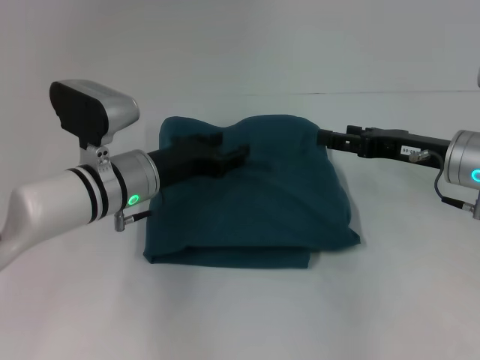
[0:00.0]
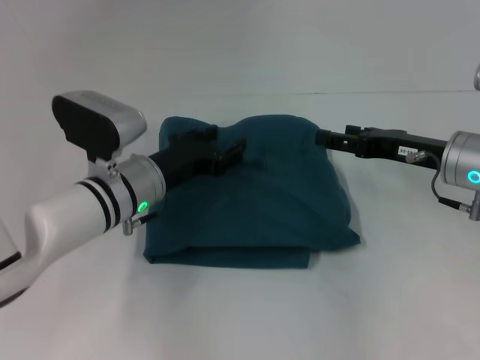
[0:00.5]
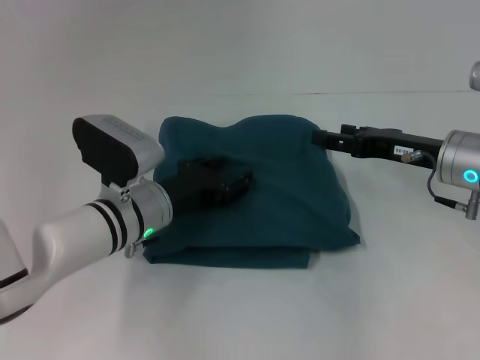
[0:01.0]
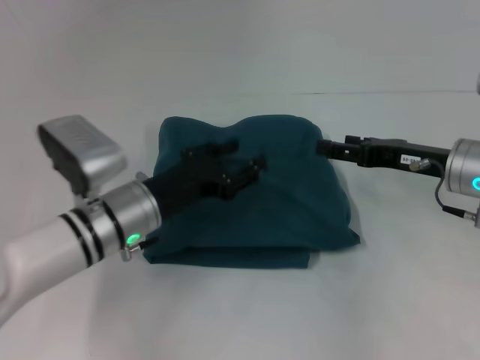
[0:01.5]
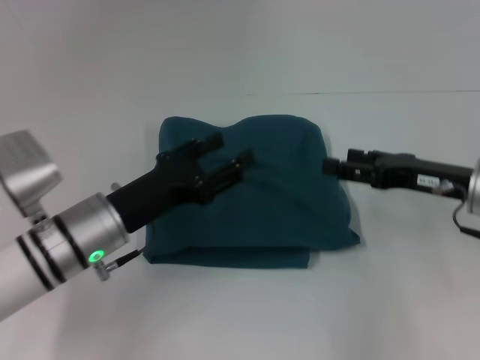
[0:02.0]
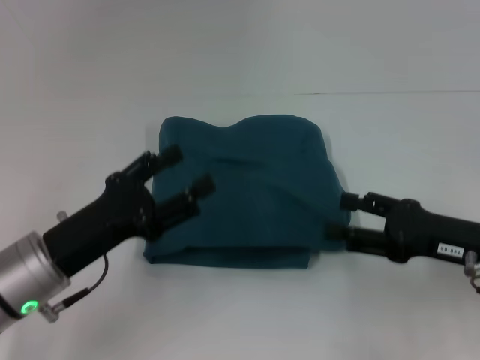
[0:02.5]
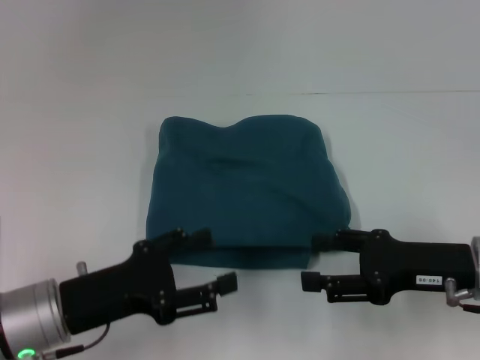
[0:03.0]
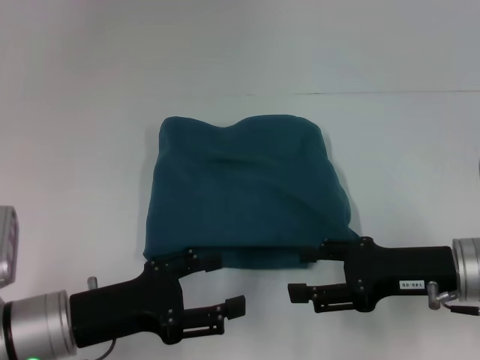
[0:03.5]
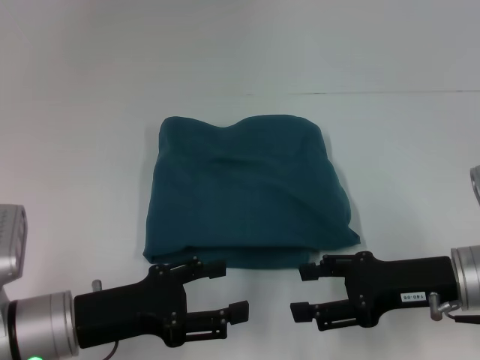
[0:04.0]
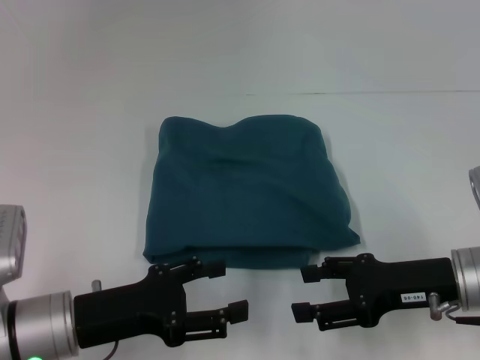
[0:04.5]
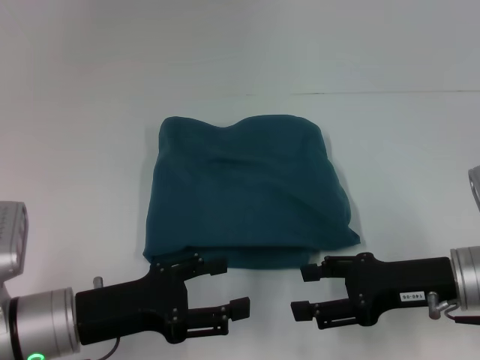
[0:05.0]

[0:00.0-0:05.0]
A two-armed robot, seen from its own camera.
0:00.0 to 0:02.5: The left gripper shifts about 15 cm backward and to the left. The right gripper heads backward, covering about 10 cm.

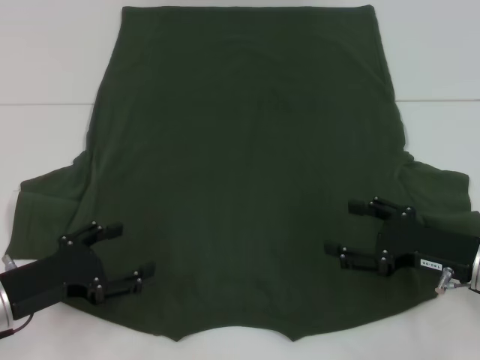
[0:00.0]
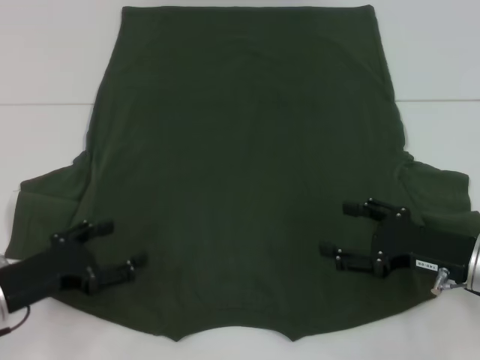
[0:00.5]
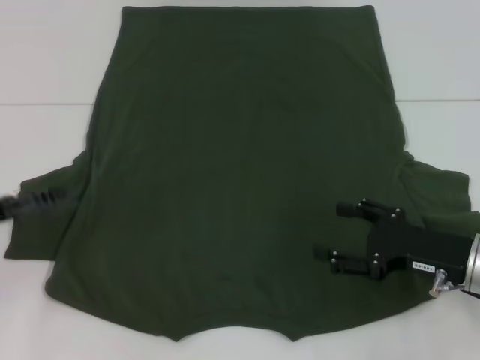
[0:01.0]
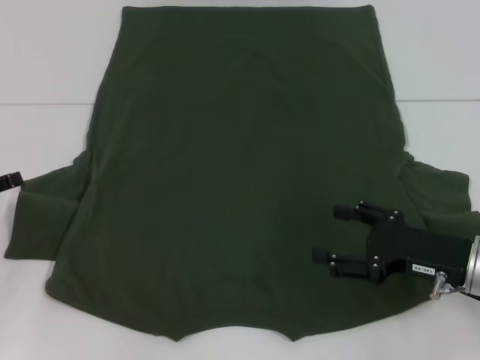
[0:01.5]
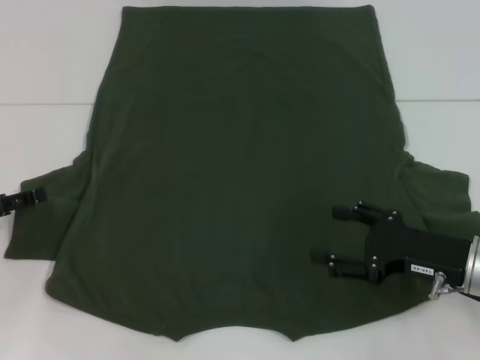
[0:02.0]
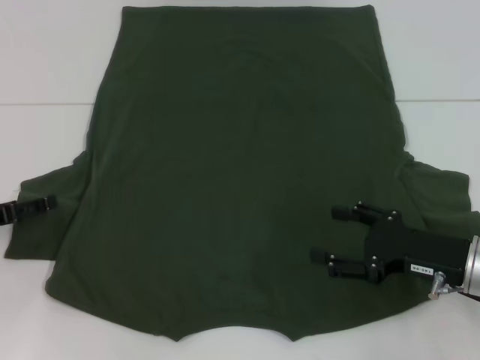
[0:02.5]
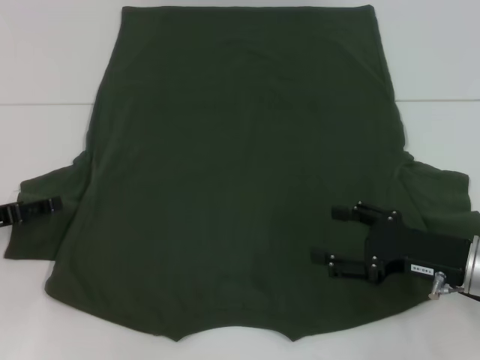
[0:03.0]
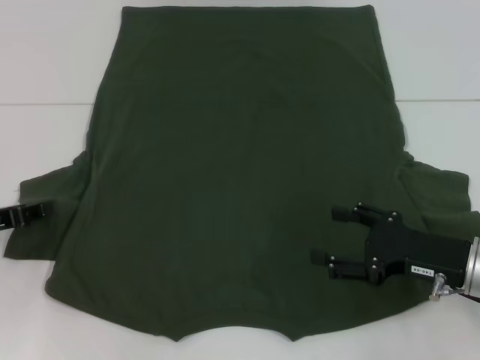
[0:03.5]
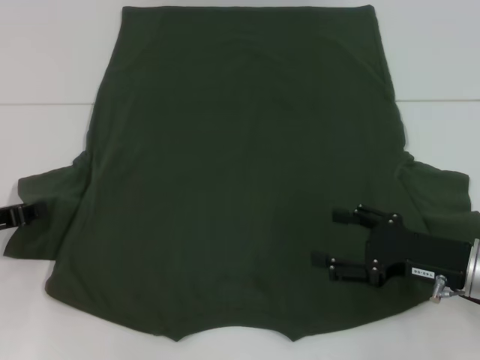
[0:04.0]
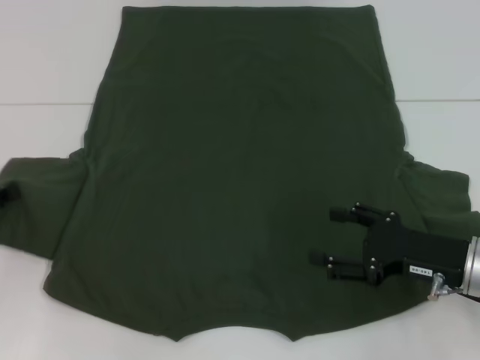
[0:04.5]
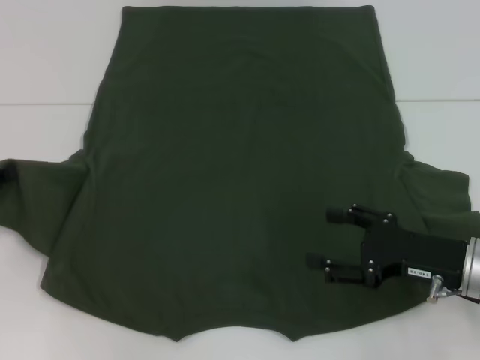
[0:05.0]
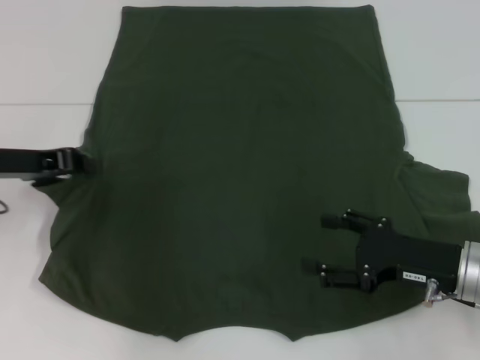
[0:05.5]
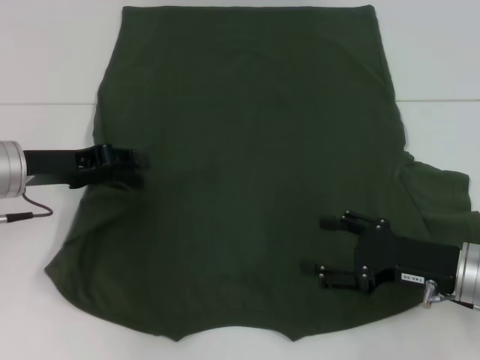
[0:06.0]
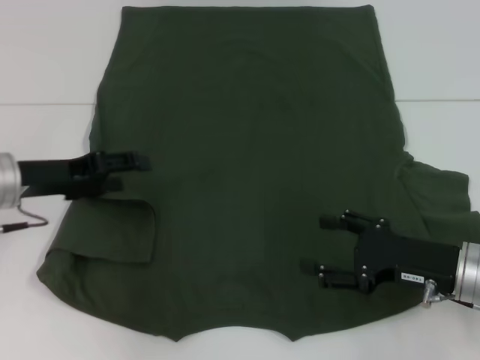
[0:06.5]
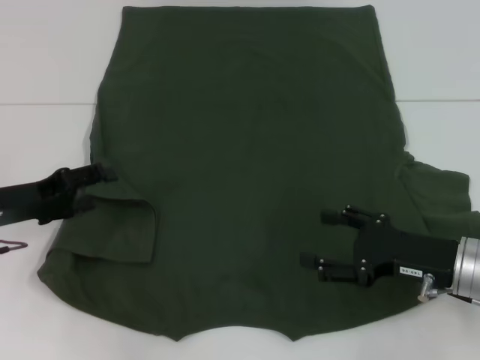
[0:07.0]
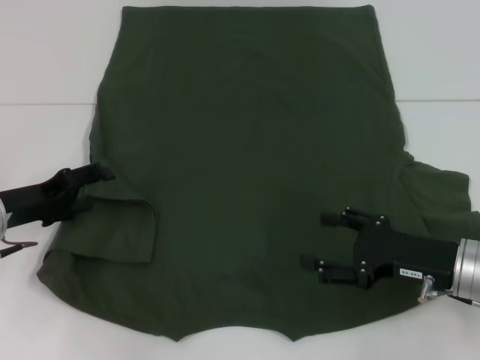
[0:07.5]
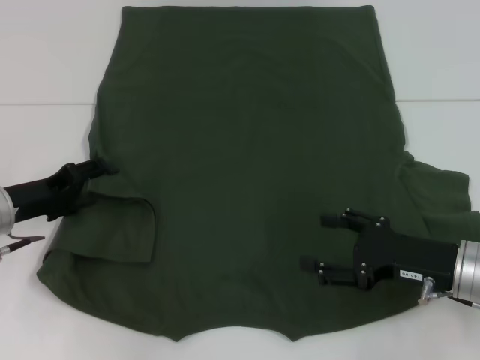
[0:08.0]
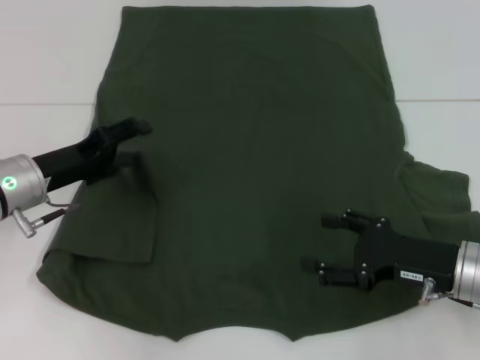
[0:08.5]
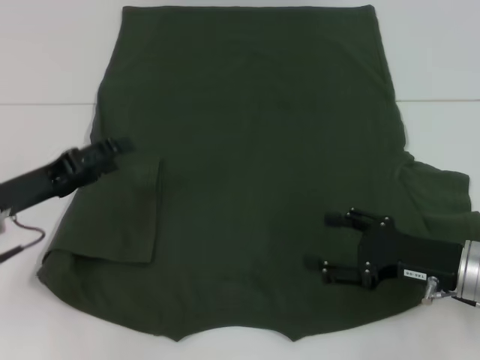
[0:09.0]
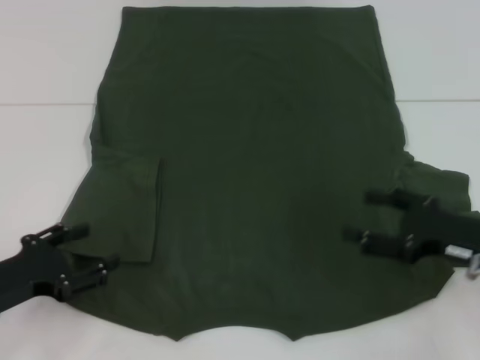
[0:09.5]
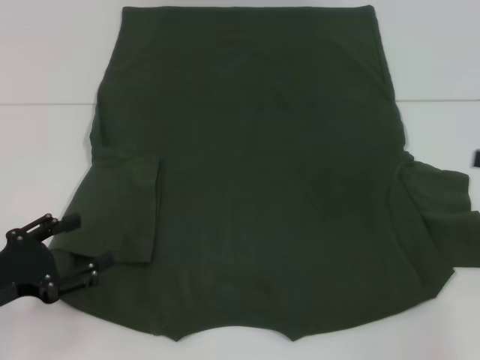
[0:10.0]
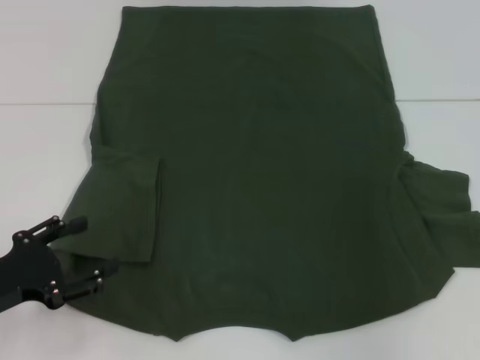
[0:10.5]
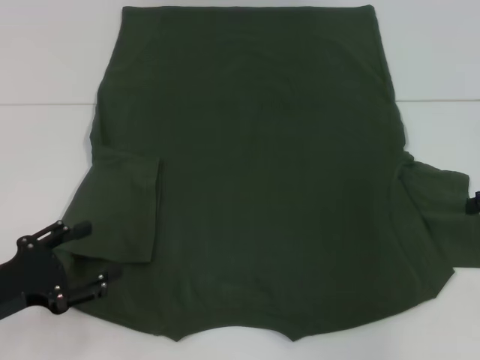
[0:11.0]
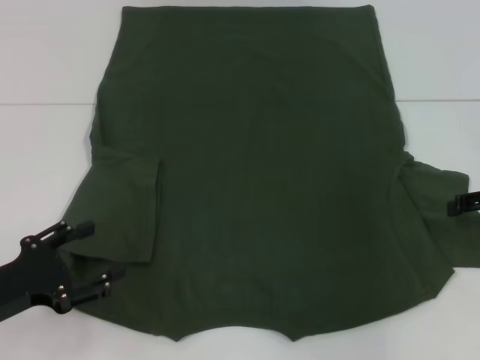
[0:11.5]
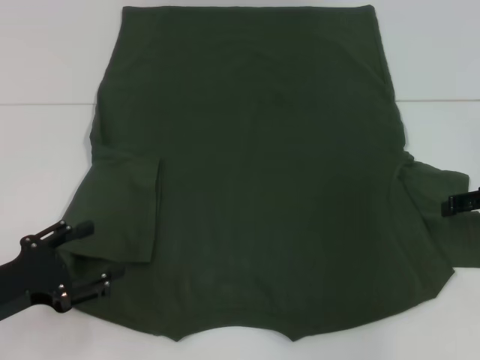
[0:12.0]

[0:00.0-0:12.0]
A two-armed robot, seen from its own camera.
Step, 0:00.0 to 0:08.5: Fold the bottom left sleeve with your left hand.
0:00.0 to 0:02.0: The left gripper travels to the left and forward by some 10 cm.
0:02.0 to 0:04.0: The left gripper closes its fingers.
0:04.0 to 0:06.0: The left gripper shifts roughly 10 cm to the right, upward and forward.
0:06.0 to 0:08.0: The left gripper heads downward, covering approximately 5 cm, and opens.
0:08.0 to 0:10.0: The left gripper is displaced backward by approximately 10 cm. The right gripper moves to the right and upward, approximately 20 cm.

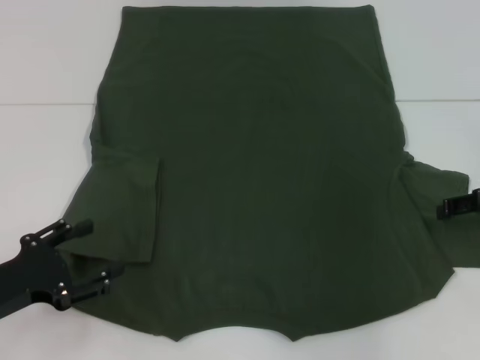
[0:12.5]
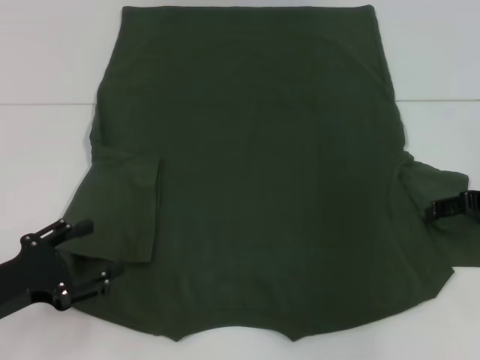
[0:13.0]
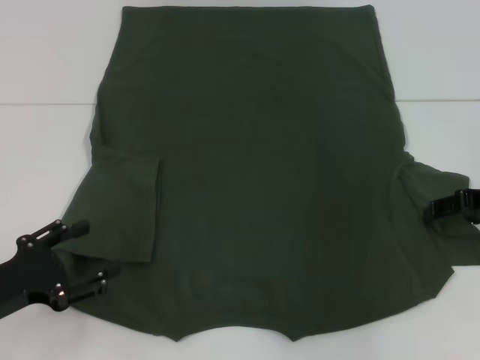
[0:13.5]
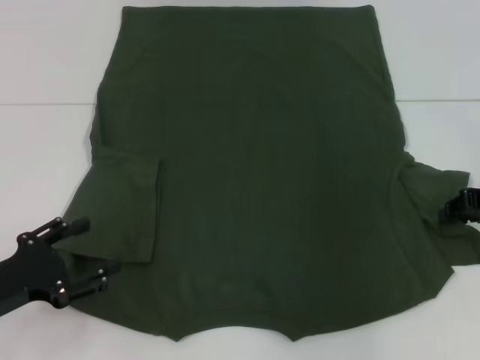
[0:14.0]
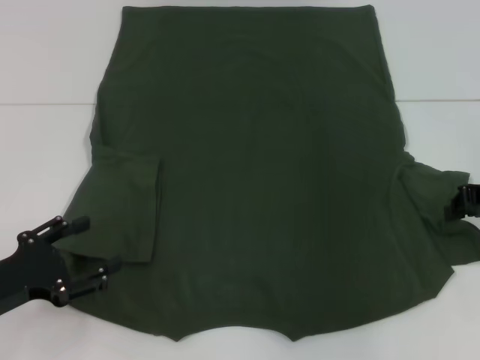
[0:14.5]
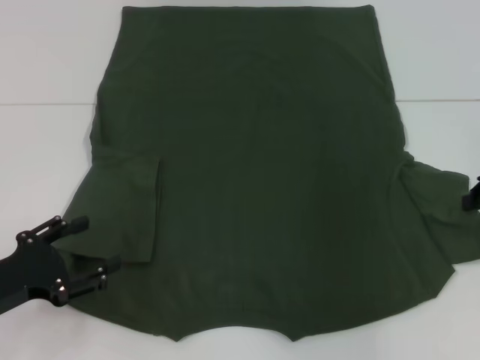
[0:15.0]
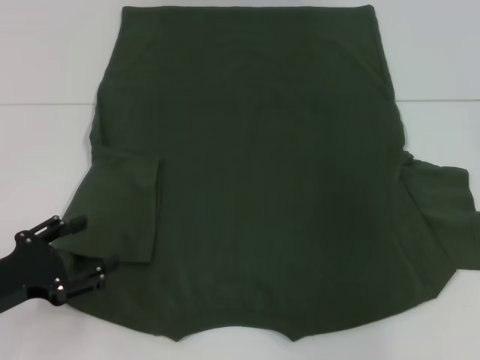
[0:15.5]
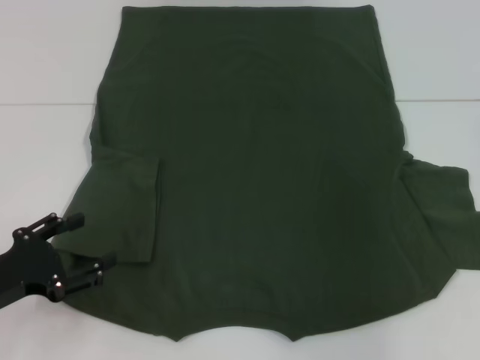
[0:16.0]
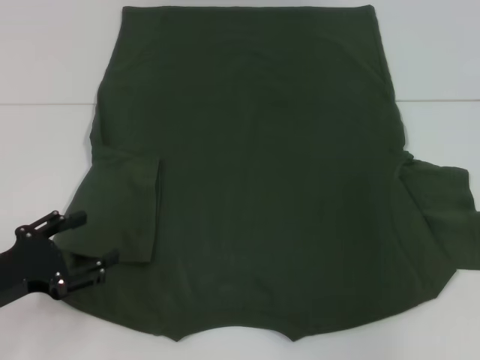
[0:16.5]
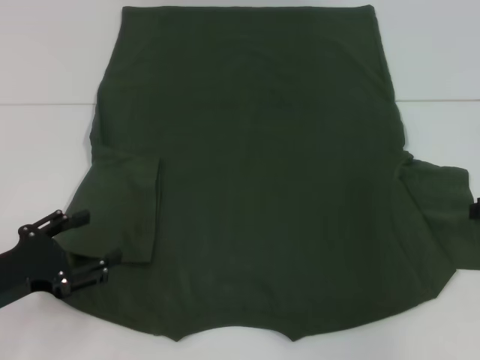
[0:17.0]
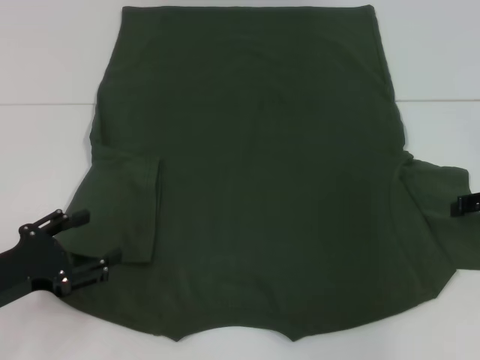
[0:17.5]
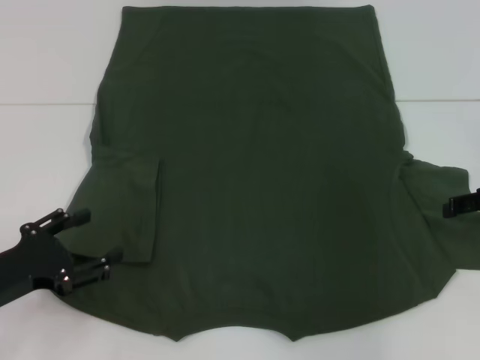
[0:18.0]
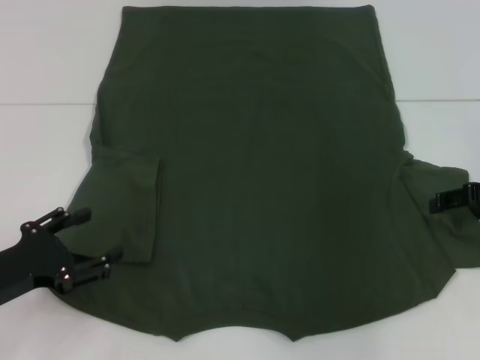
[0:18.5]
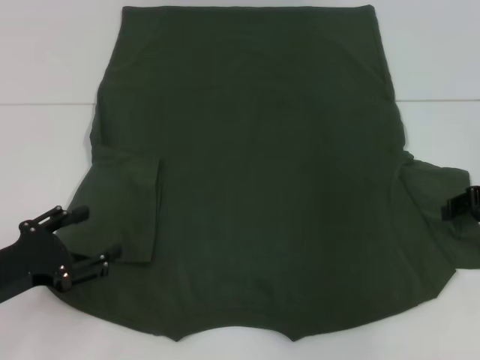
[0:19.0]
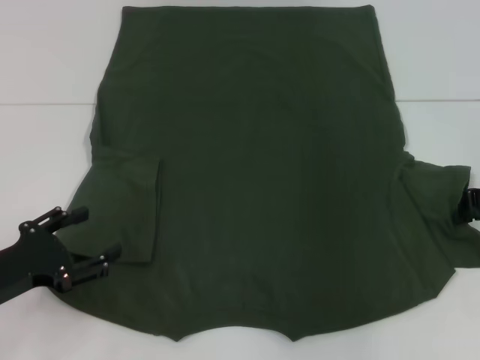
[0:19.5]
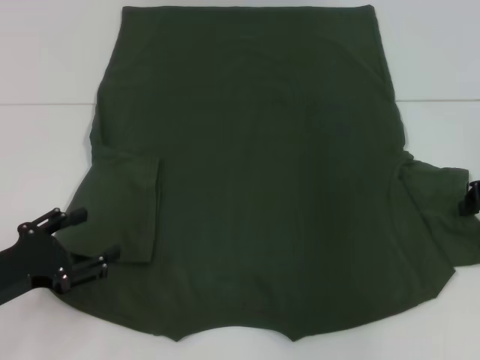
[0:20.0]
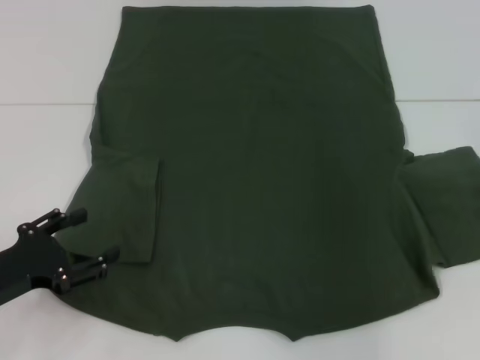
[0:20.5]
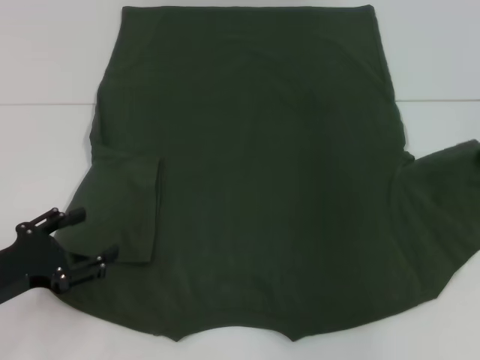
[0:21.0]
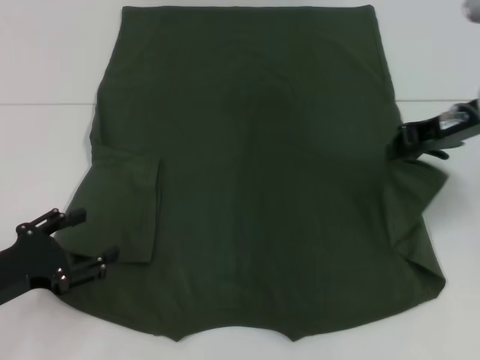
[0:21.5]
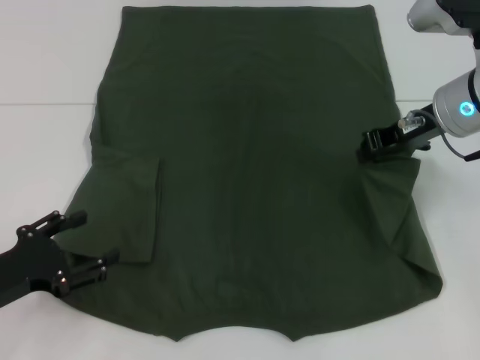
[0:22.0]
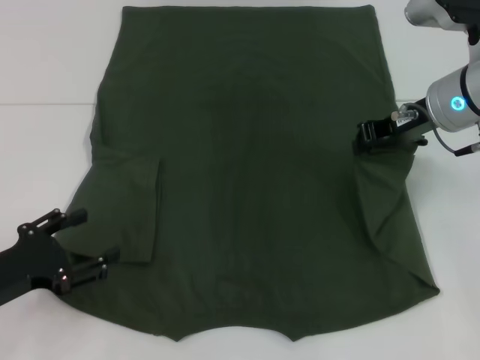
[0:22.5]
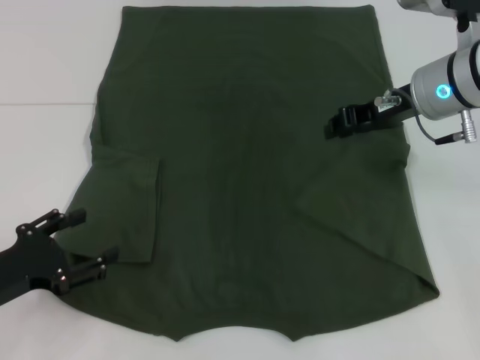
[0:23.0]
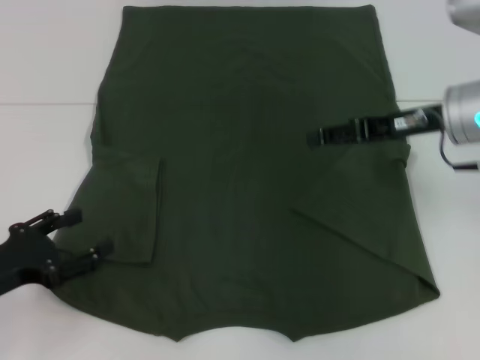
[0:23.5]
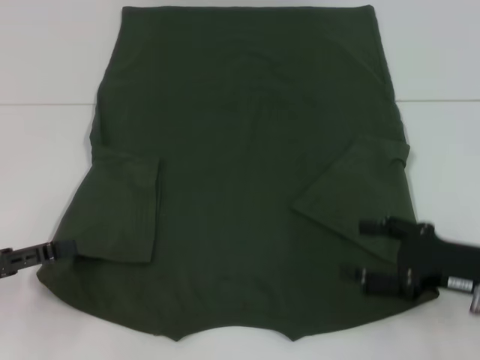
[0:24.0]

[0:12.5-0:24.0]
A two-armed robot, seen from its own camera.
Step, 0:12.5 to 0:23.0: Fold the bottom right sleeve with your right hand.
0:14.5 to 0:16.5: The right gripper shifts approximately 5 cm to the right, and opens up.
0:16.5 to 0:18.5: The right gripper shifts by about 5 cm, and opens its fingers.
0:20.0 to 0:22.0: The right gripper shifts approximately 10 cm to the left.
0:22.0 to 0:24.0: The right gripper moves backward, downward and to the right, about 20 cm, and opens its fingers, while the left gripper changes place by approximately 5 cm.
